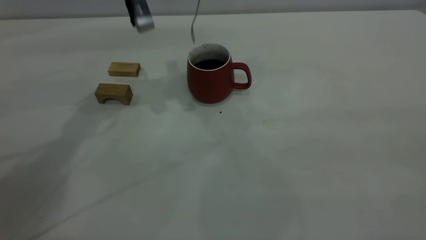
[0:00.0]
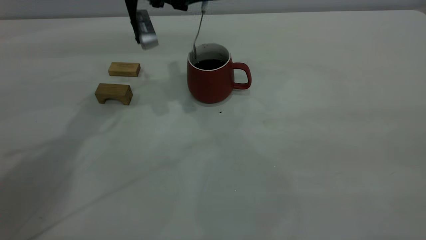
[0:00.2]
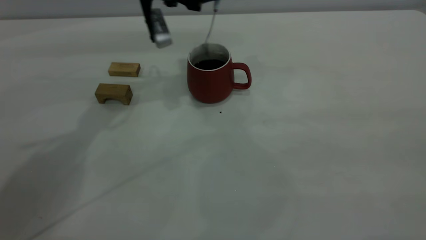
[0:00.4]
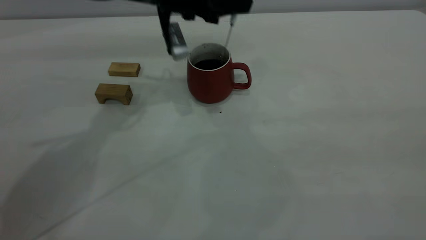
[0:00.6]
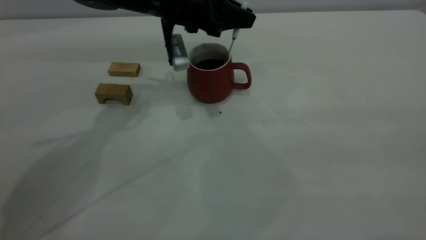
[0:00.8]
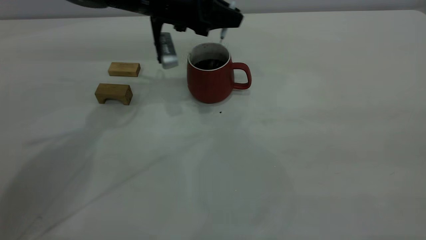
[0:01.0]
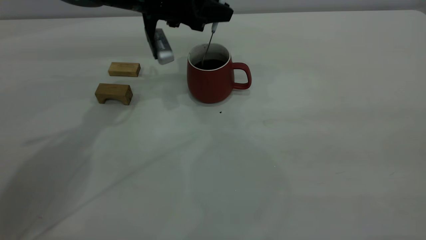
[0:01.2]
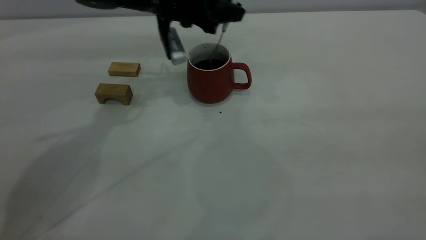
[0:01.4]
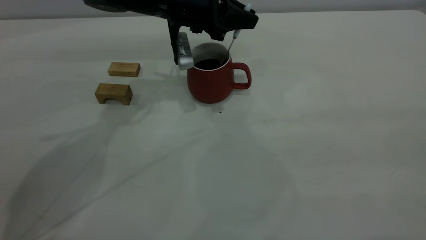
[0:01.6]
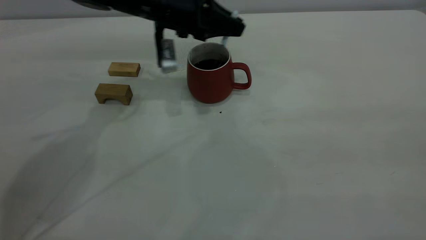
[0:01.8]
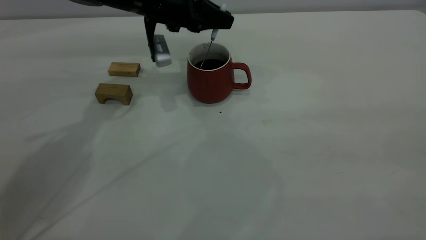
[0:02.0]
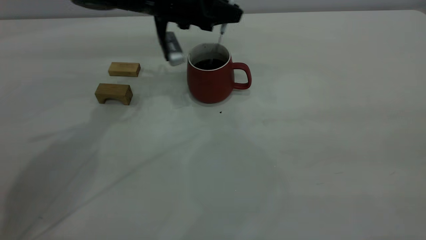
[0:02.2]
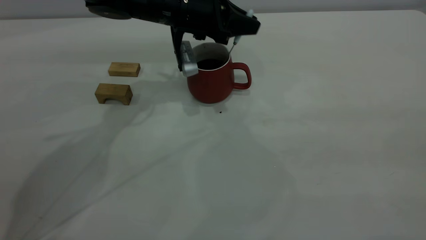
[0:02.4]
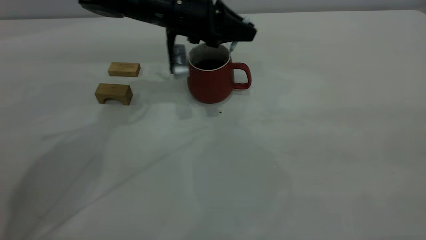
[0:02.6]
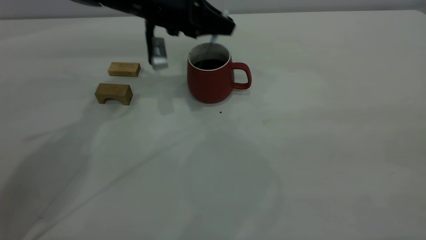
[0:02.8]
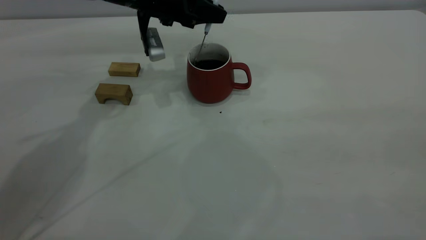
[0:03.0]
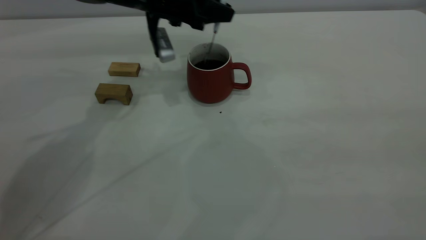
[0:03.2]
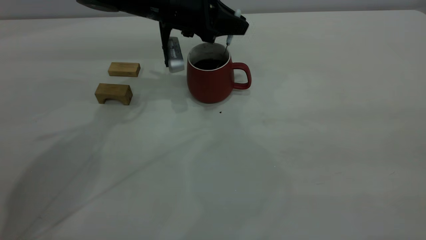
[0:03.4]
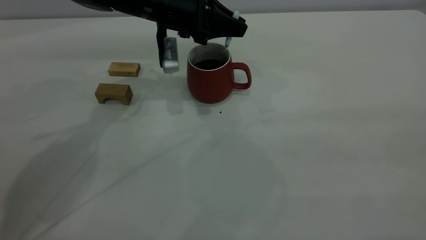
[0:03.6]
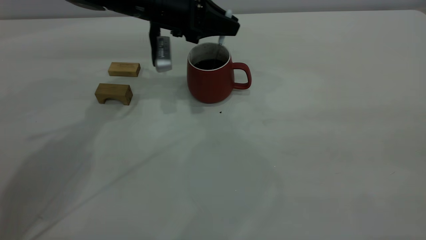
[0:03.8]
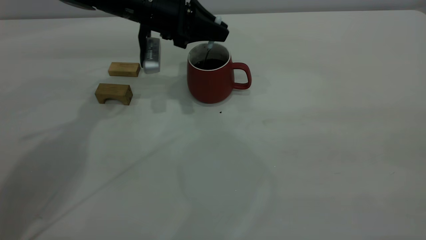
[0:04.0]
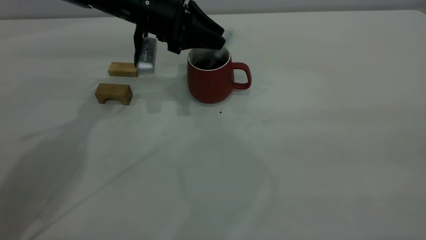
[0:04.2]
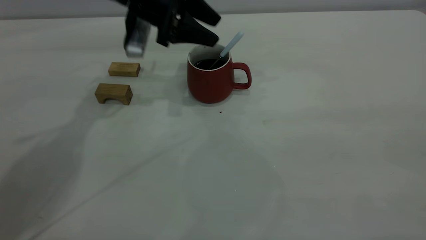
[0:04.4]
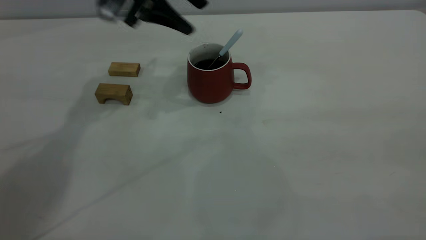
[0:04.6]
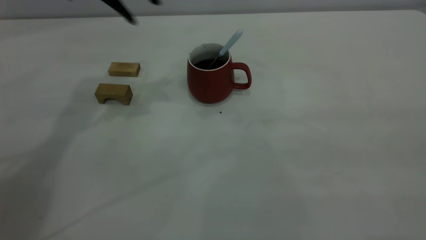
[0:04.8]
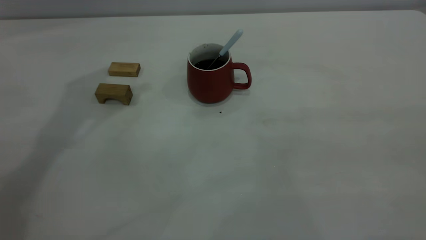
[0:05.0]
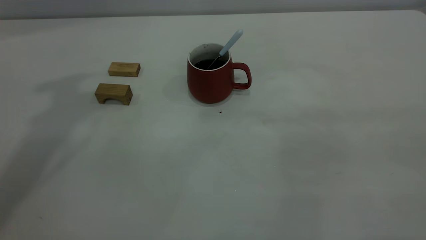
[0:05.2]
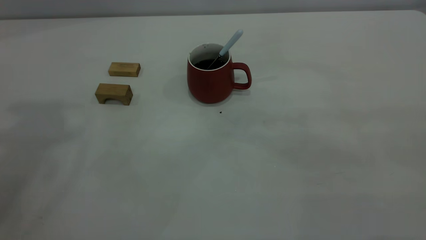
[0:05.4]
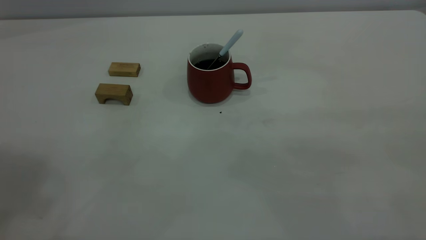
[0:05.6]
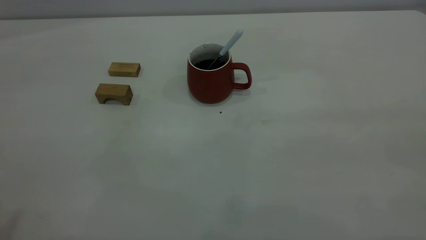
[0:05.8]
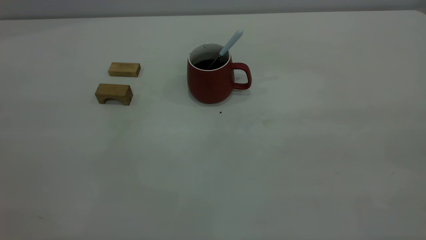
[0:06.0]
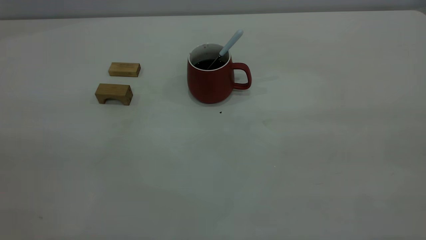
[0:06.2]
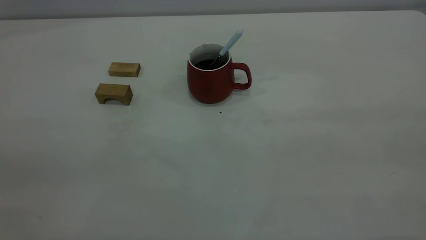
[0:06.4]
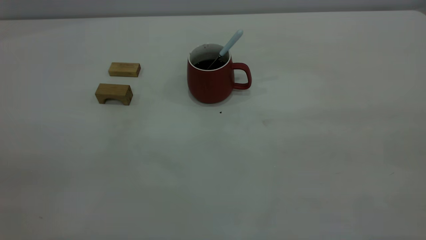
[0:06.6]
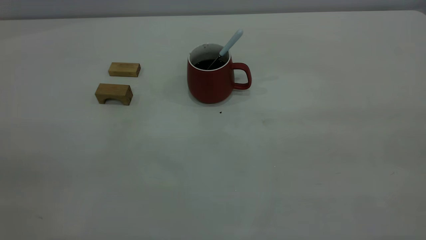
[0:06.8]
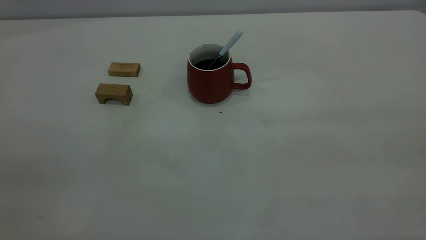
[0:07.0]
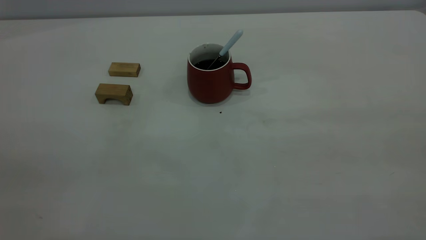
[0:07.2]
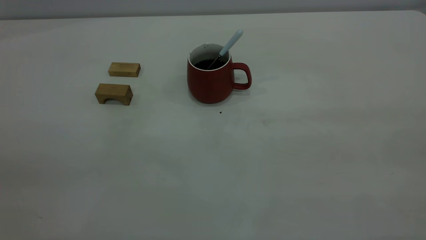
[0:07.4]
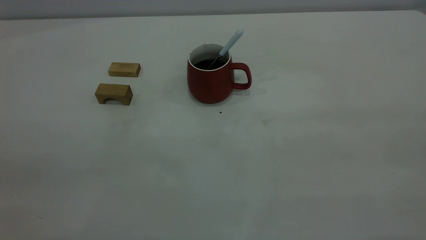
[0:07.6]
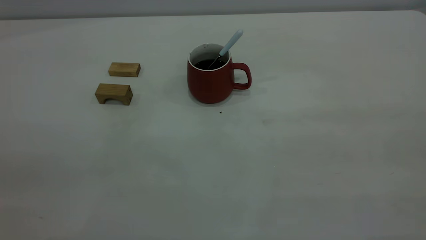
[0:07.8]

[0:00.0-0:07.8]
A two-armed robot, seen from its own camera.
Step, 0:00.0 to 0:04.6: Stir the coffee in the cup.
0:00.0 to 0:01.6: The left gripper moves downward and to the right, roughly 10 cm.
0:01.6 to 0:03.2: The grippers make only small movements.
0:03.2 to 0:04.6: The left gripper heads upward, covering some 10 cm, and opens up.
0:04.6 to 0:06.2: The left gripper travels backward by roughly 40 cm, and closes.
